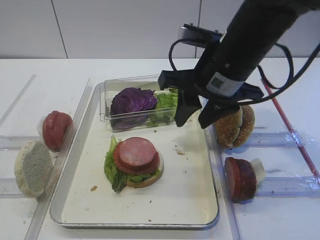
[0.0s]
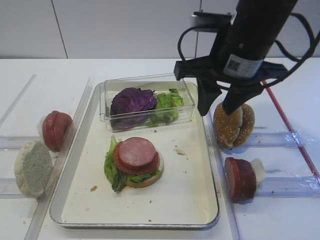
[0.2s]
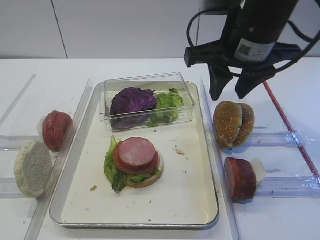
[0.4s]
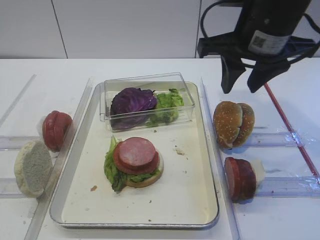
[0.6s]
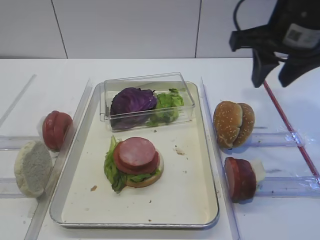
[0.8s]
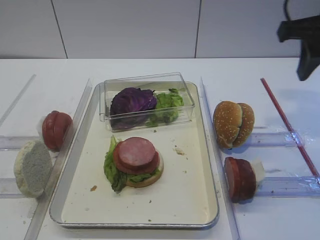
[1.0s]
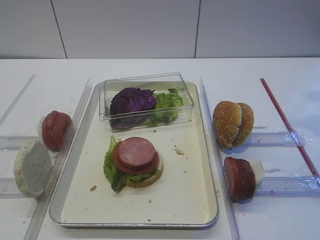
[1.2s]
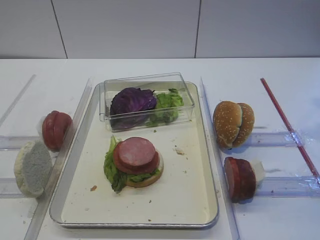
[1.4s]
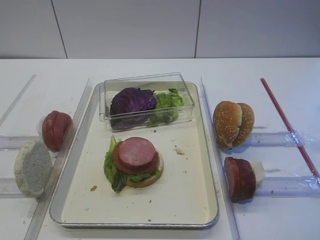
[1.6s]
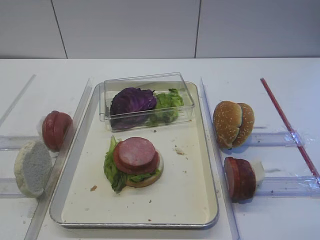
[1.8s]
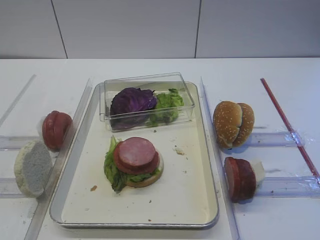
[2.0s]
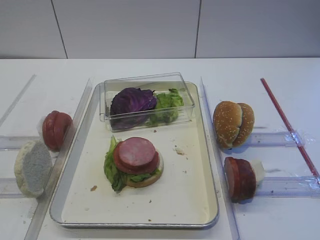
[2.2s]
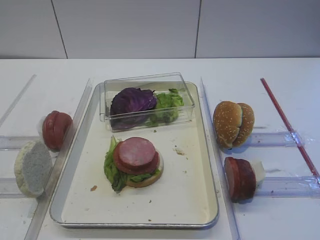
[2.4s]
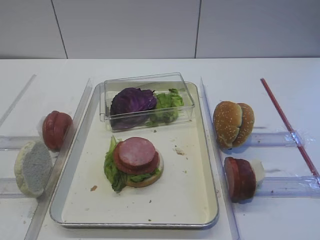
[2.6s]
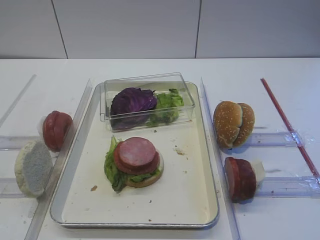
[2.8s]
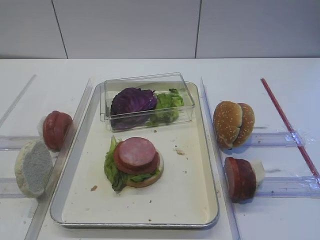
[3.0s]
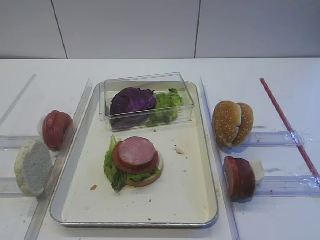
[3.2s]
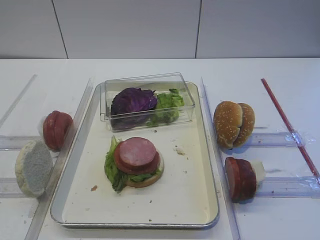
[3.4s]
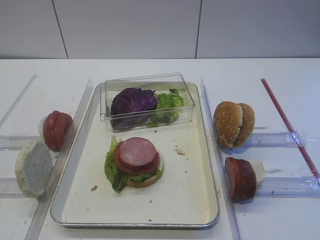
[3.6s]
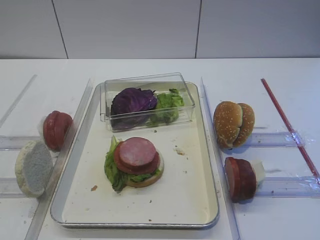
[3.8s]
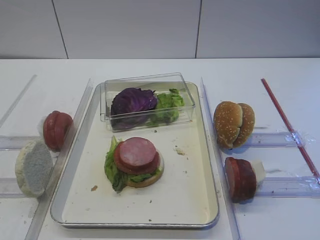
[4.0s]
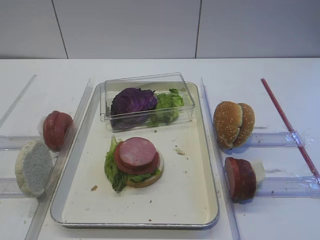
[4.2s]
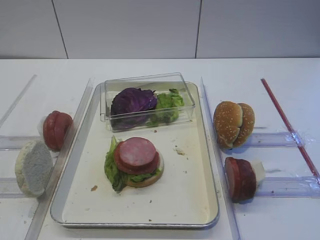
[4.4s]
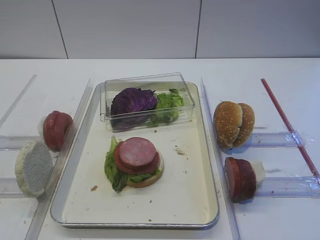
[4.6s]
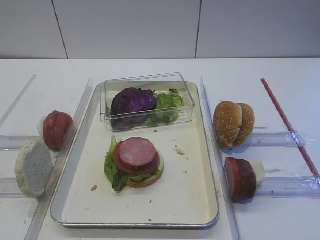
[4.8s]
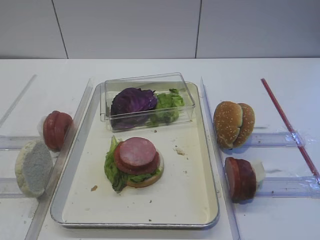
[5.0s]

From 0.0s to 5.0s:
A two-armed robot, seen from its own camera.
From 0.0s to 1.6s: The right gripper is displaced to the right, upward and backward by some 20 cm.
From 3.4s to 5.0s: Neither gripper changes place.

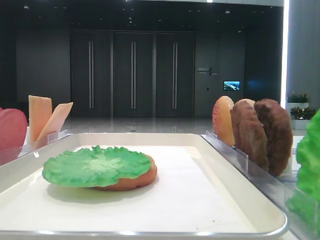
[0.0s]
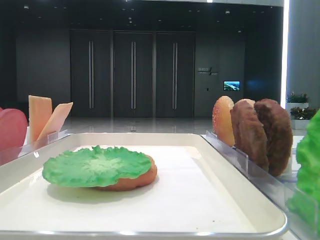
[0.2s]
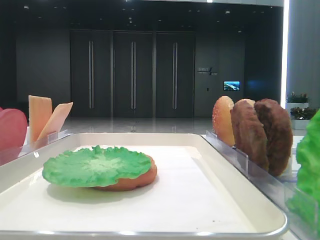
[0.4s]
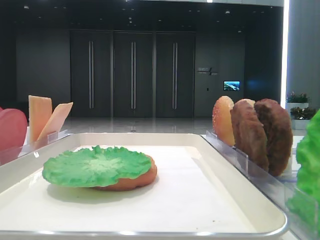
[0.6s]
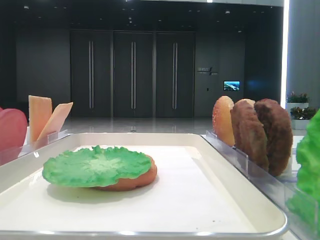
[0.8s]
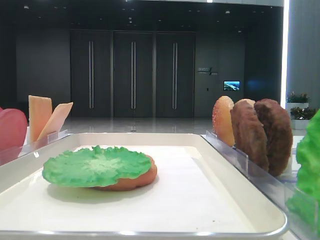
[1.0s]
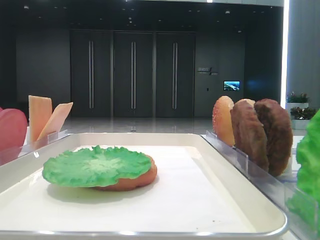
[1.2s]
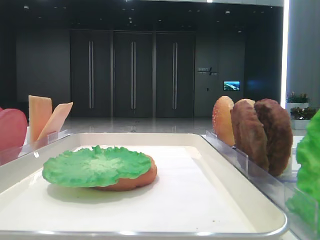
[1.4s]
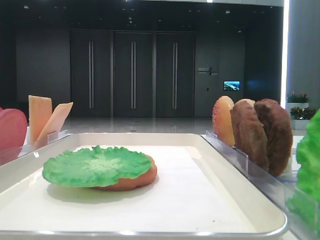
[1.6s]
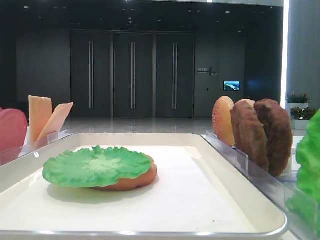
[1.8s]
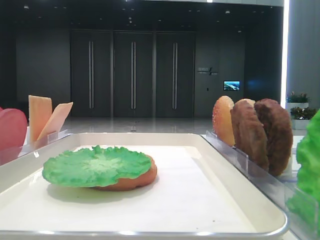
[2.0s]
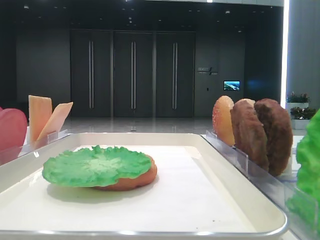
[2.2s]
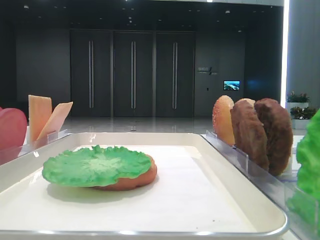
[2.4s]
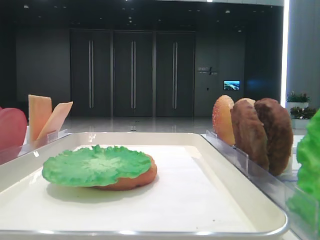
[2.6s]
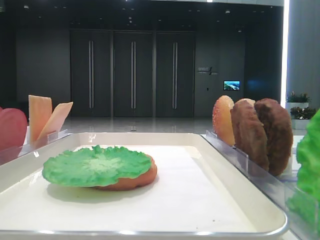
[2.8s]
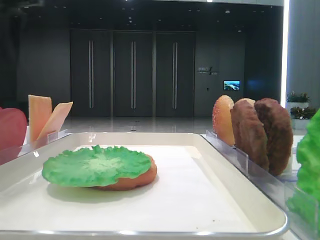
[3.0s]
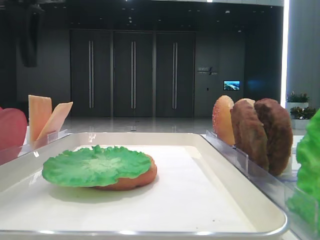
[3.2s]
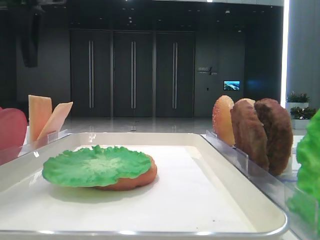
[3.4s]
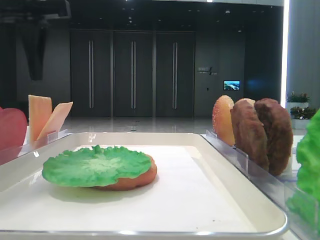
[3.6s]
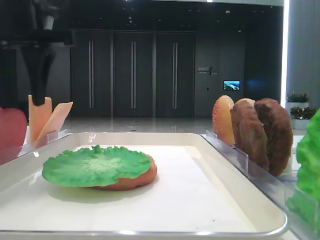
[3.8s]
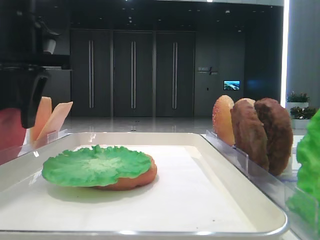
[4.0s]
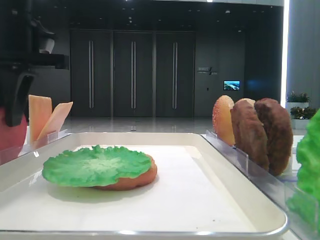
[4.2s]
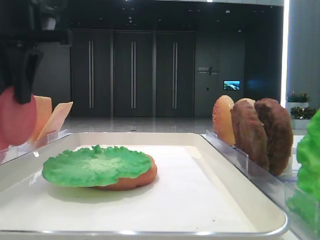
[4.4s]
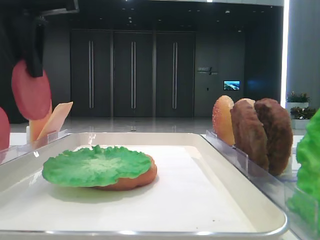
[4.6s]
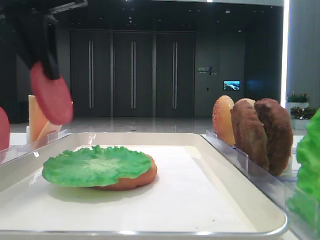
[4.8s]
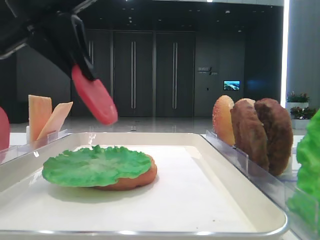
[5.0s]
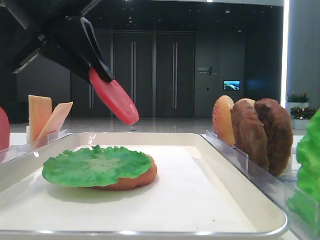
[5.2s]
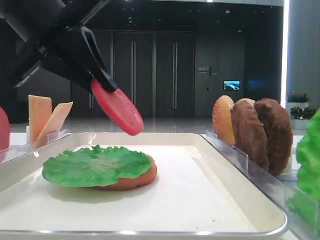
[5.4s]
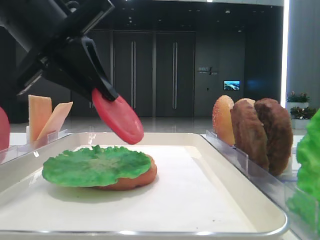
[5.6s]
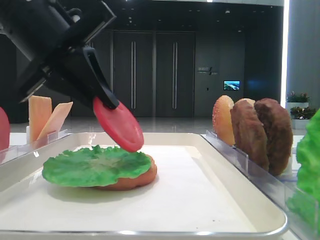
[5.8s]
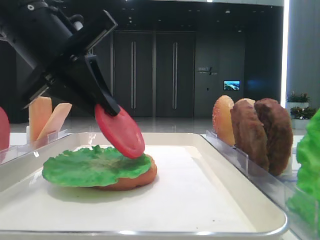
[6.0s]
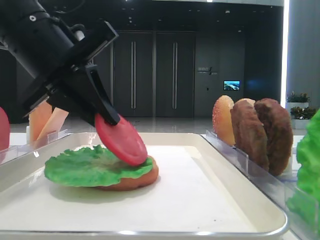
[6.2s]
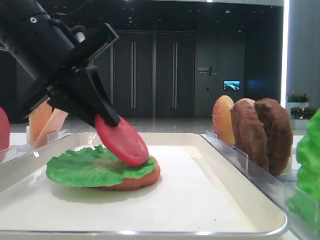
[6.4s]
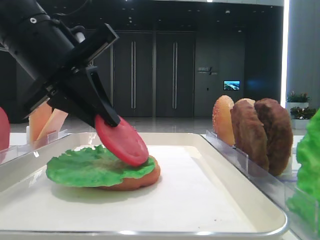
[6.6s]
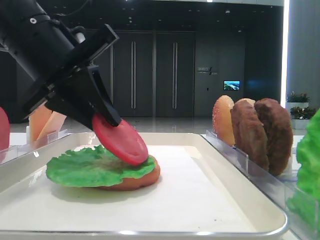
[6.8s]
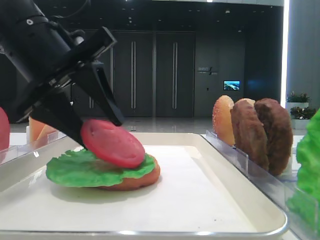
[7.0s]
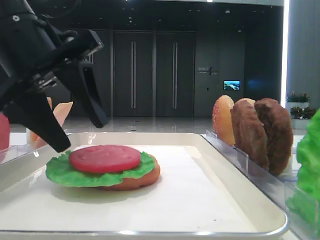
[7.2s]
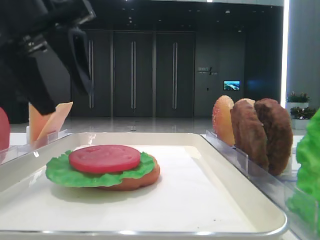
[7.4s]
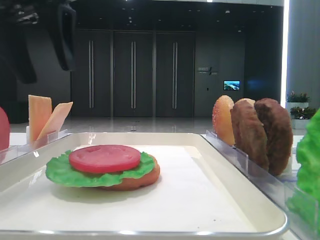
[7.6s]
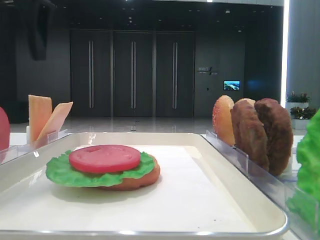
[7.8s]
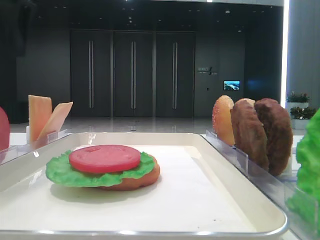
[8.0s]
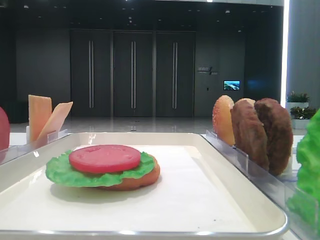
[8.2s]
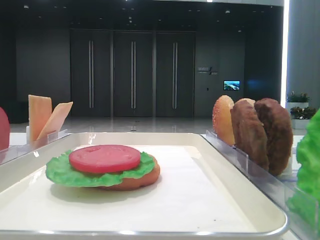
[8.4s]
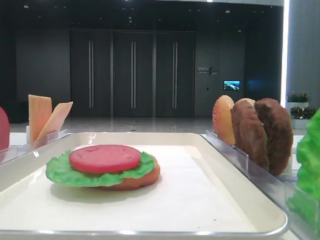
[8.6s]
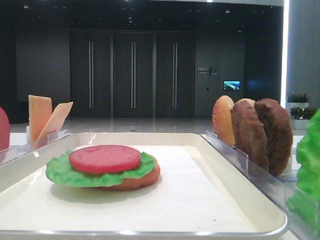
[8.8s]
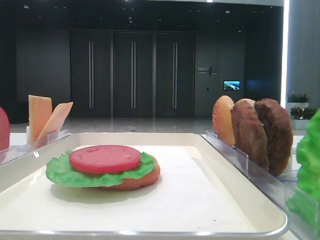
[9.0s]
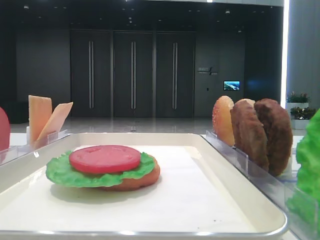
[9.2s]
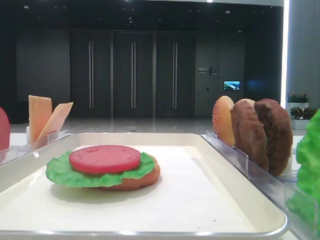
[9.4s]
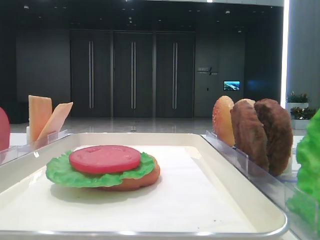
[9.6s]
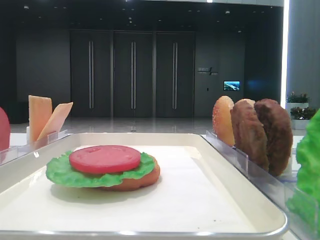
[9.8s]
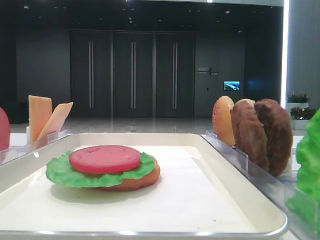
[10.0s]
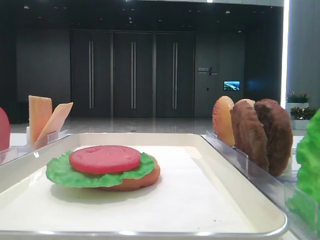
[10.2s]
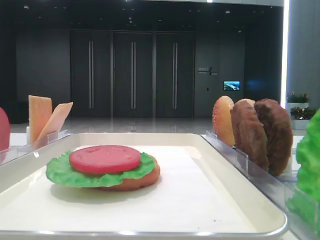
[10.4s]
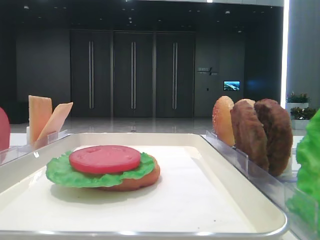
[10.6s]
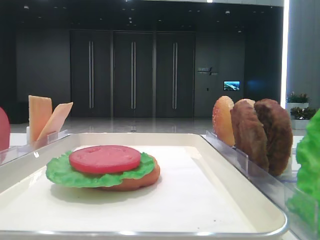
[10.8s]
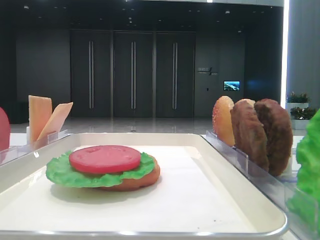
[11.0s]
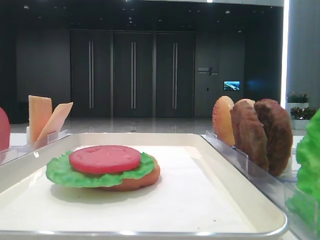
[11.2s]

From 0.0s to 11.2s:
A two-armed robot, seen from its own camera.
Step, from 0.0s to 4.0s: Pick up the tomato slice with the left hand.
Step, from 4.2s to 7.0s: Place the tomato slice on the lettuce leaf with the left hand.
From 1.6s to 3.2s: The left gripper is displaced forward by roughly 30 cm.
From 3.2s to 4.8s: The left gripper closes its fingers.
From 4.8s to 6.4s: The left gripper is displaced downward by some 10 cm.
From 6.4s to 8.0s: The left gripper heads upward and to the left, covering about 15 cm, and opens.
From 8.0s to 9.6s: The left gripper moves backward, approximately 30 cm.
